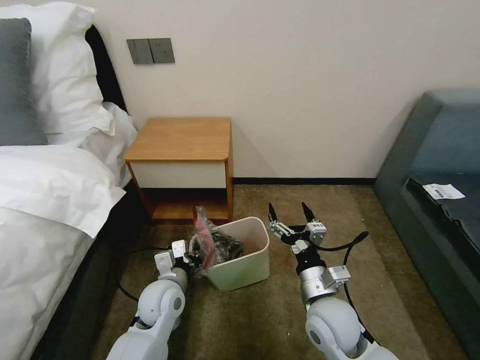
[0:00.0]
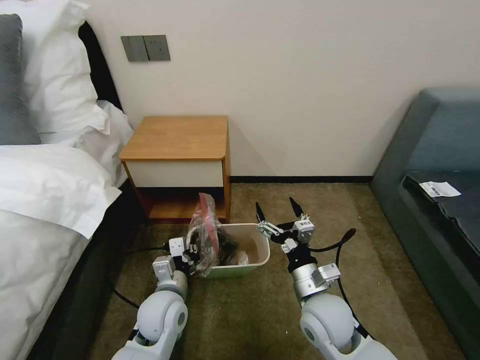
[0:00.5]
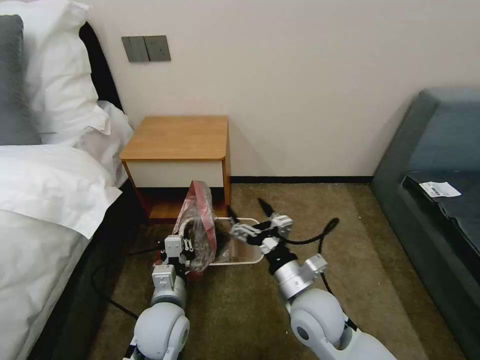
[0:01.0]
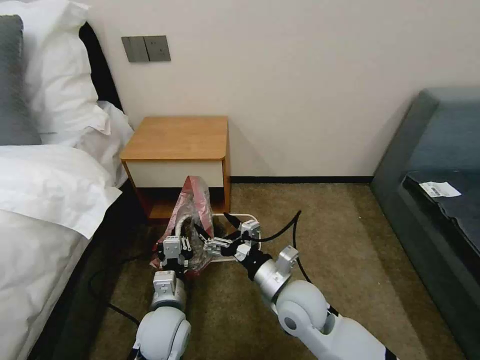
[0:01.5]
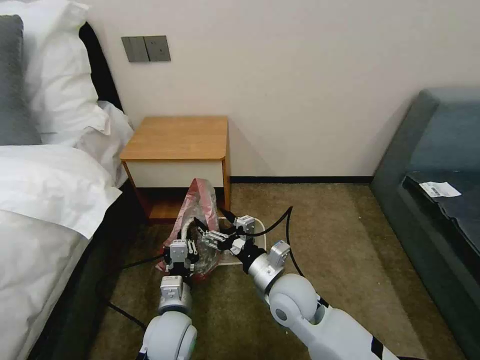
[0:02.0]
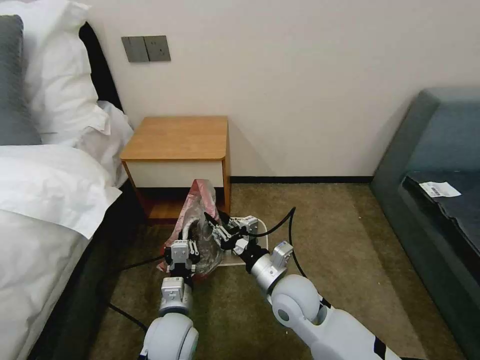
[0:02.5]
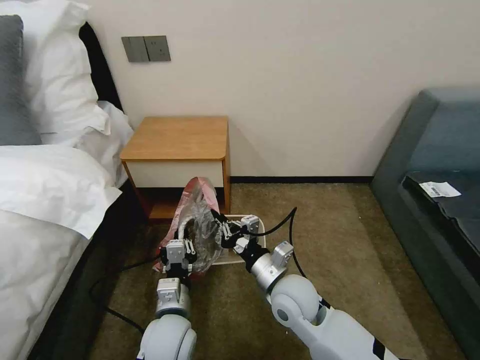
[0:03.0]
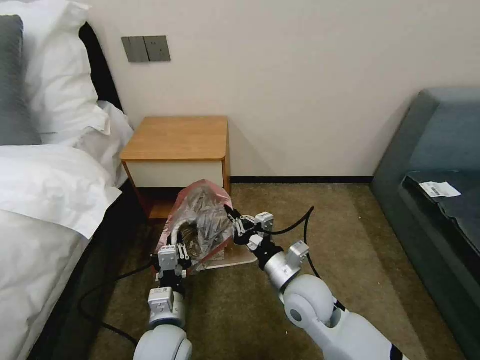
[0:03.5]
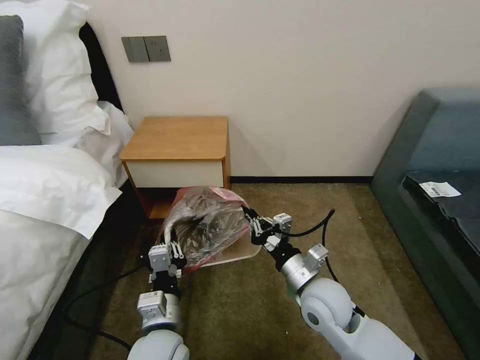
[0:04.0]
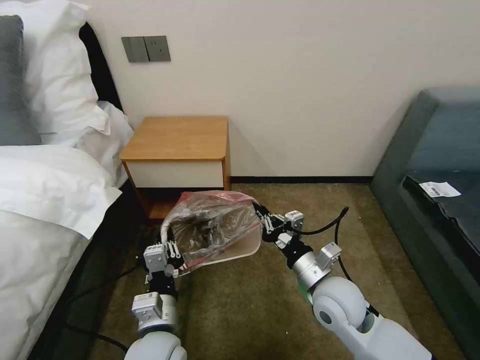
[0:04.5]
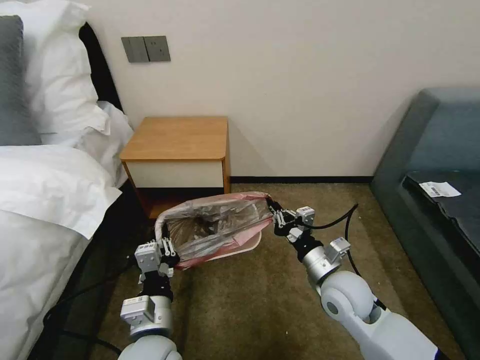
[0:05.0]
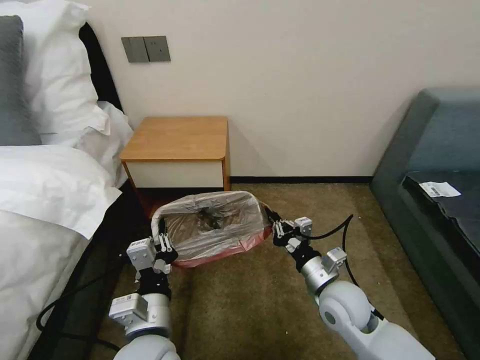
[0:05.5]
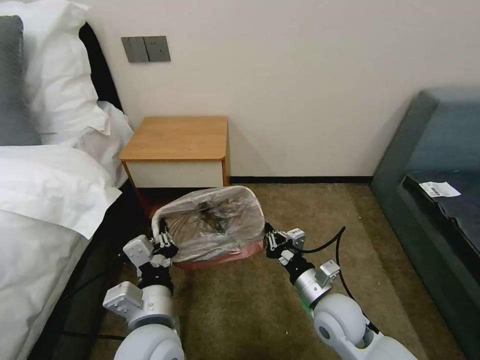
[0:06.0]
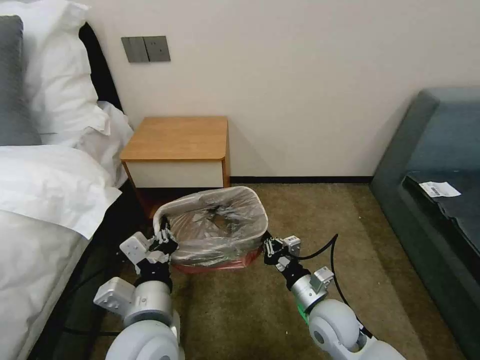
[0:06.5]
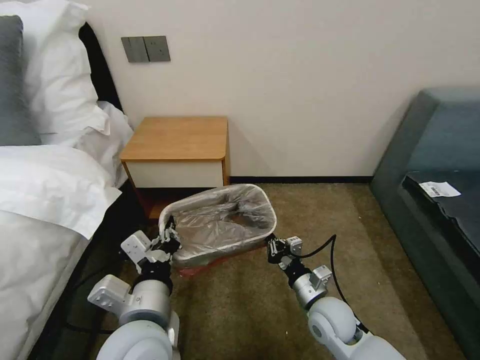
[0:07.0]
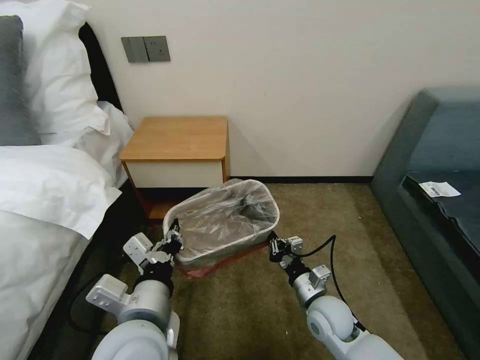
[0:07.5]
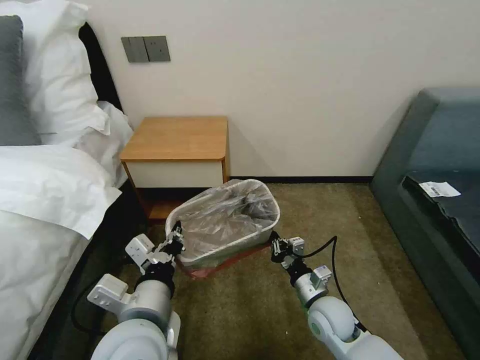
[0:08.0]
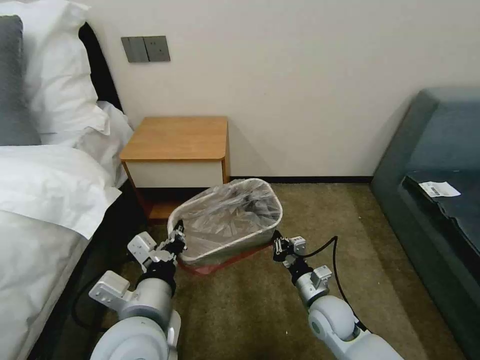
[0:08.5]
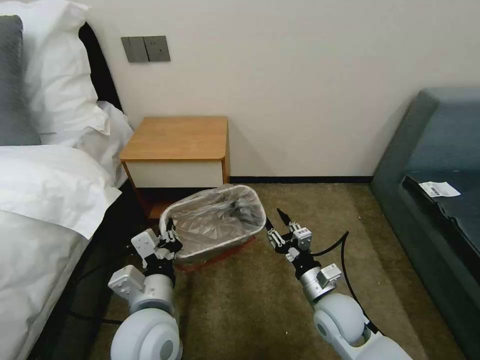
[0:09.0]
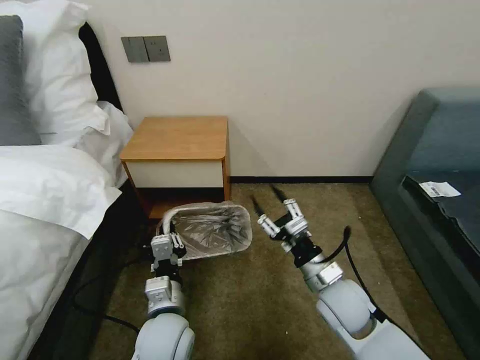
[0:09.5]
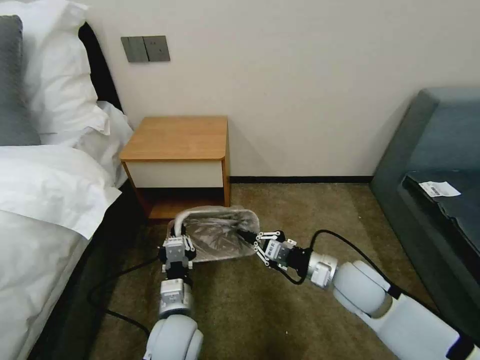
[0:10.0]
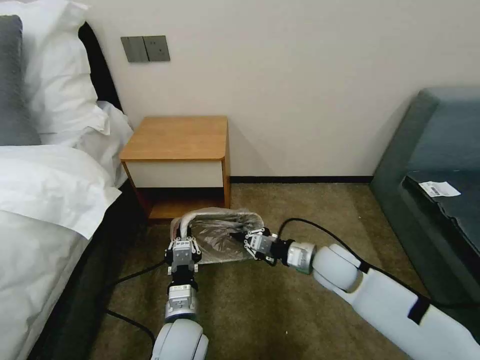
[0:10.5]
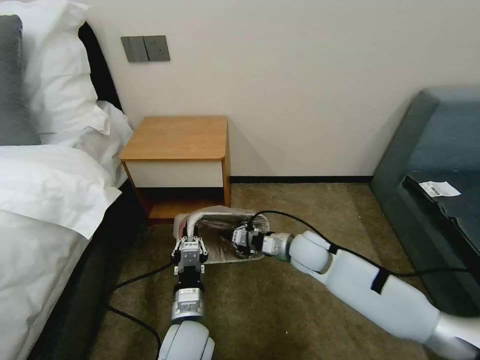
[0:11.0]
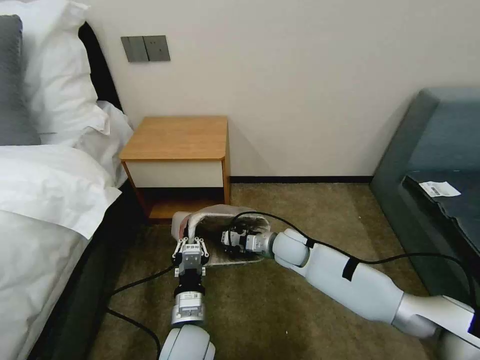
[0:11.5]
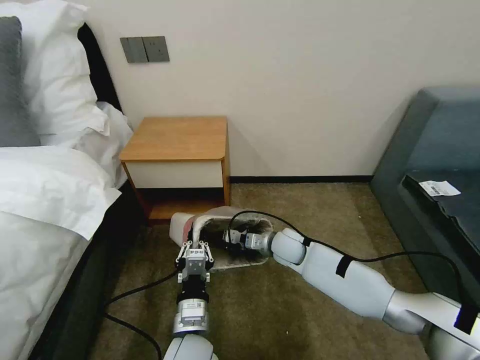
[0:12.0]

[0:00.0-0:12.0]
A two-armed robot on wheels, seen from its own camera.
Task of the whole recording: Pick up the garbage bag from the table and place it over the trash can.
0:00.0 to 0:02.0: The left gripper goes about 5 cm backward, while the right gripper is displaced to the left by approximately 5 cm.
0:02.0 to 0:04.0: The right gripper is displaced to the right by approximately 5 cm, and closes up. The left gripper shifts by some 5 cm.
0:04.0 to 0:06.0: The right gripper ends up some 5 cm from where it was. The left gripper shifts about 5 cm upward.
0:06.0 to 0:08.0: The right gripper shifts roughly 5 cm downward.
0:08.0 to 0:10.0: The right gripper goes some 10 cm upward, and opens and closes again; the left gripper is displaced downward by roughly 15 cm.
0:10.0 to 0:12.0: The right gripper is displaced forward, to the left and downward by some 20 cm.

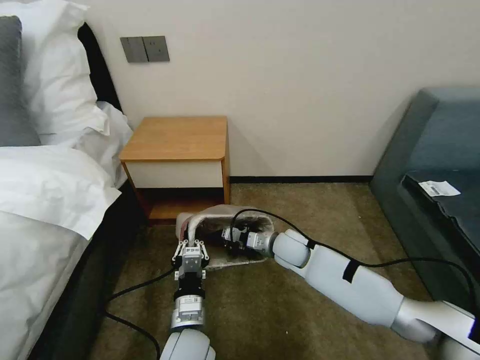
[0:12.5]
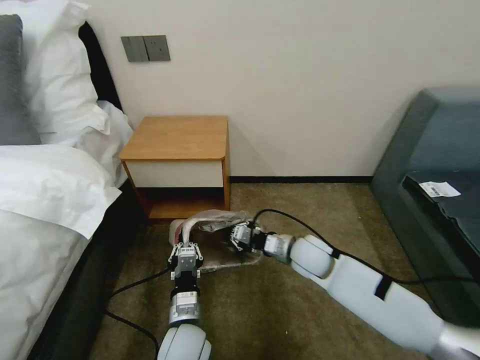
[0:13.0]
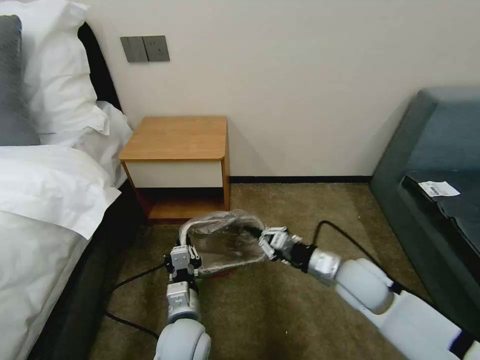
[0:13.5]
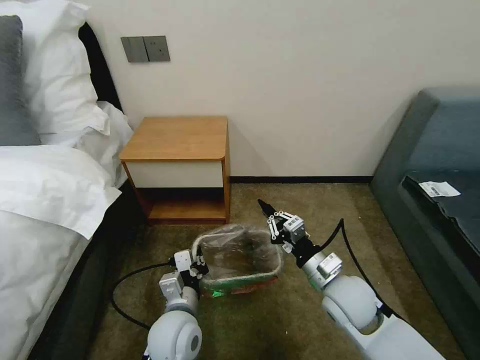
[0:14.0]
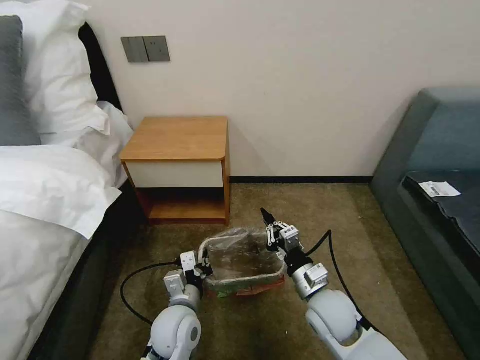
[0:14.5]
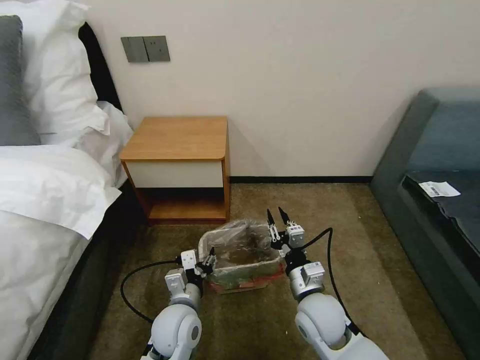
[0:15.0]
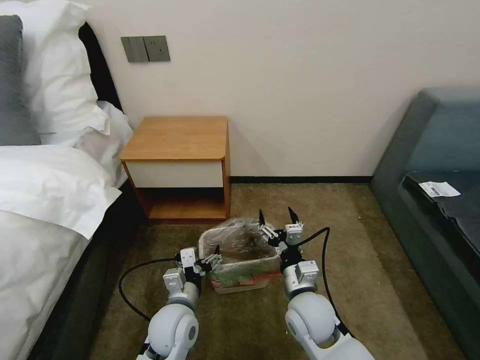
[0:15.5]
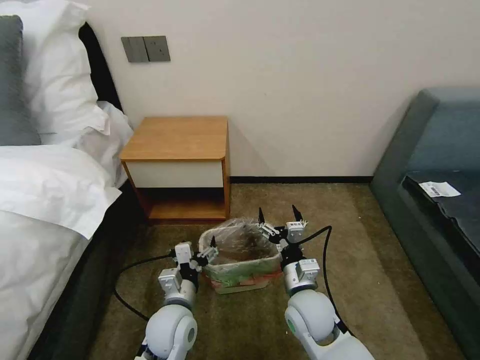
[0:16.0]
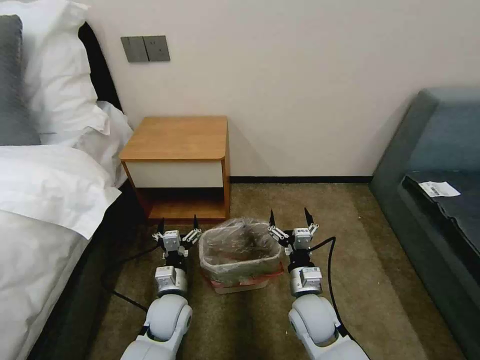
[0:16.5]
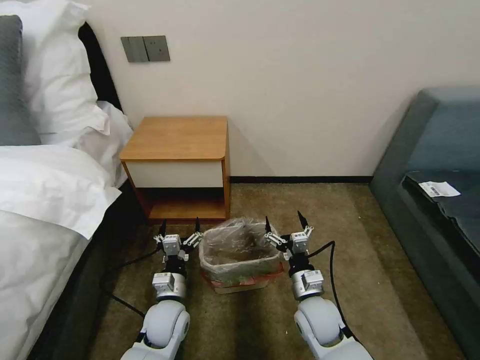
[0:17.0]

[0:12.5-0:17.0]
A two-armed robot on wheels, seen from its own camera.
Task of the whole recording: Pick up the garbage bag from the table and place it over the trash can.
0:12.5 to 0:14.5: The left gripper ends up approximately 5 cm from where it was, while the right gripper travels backward by about 15 cm.
0:14.5 to 0:17.0: The left gripper shifts by approximately 5 cm, and opens, while the right gripper goes about 5 cm downward, and opens its fingers.

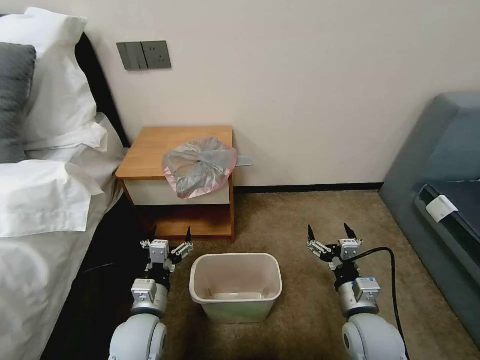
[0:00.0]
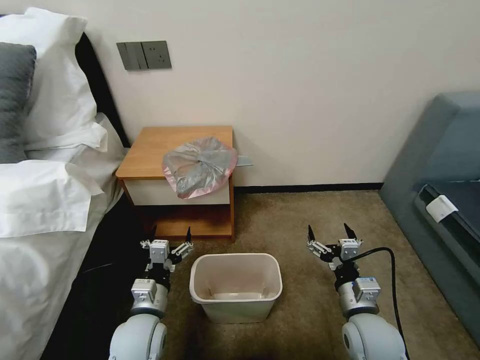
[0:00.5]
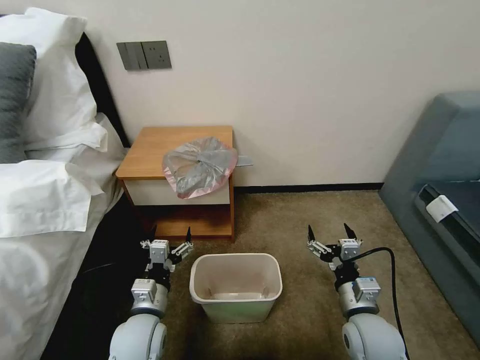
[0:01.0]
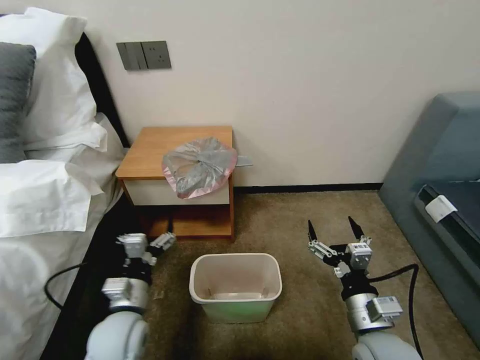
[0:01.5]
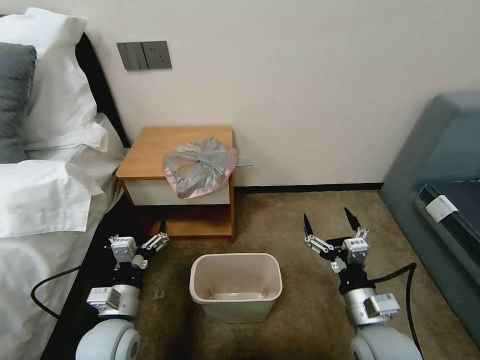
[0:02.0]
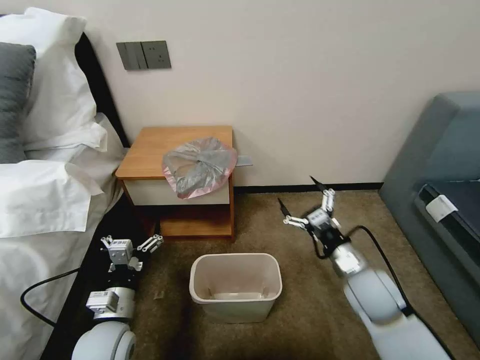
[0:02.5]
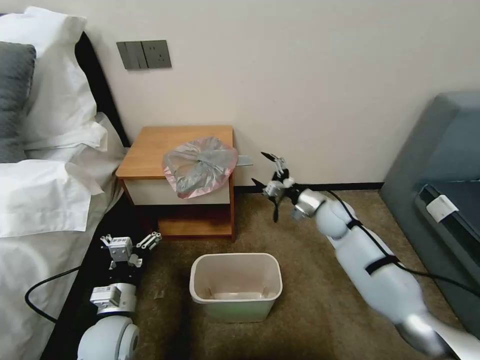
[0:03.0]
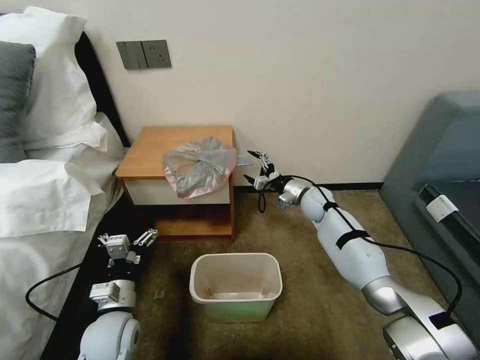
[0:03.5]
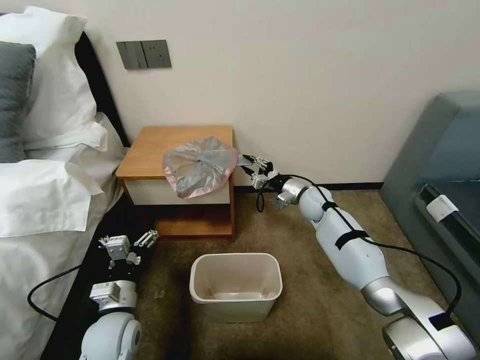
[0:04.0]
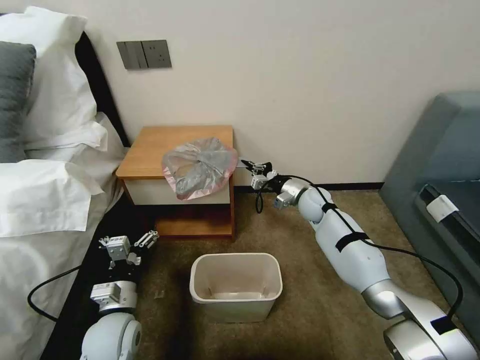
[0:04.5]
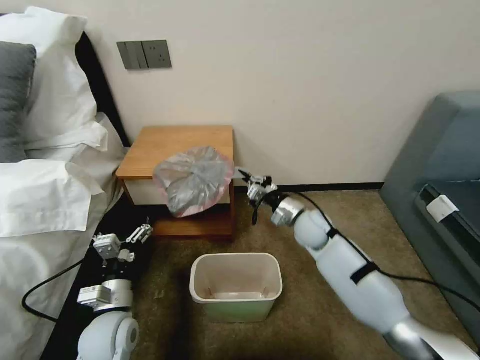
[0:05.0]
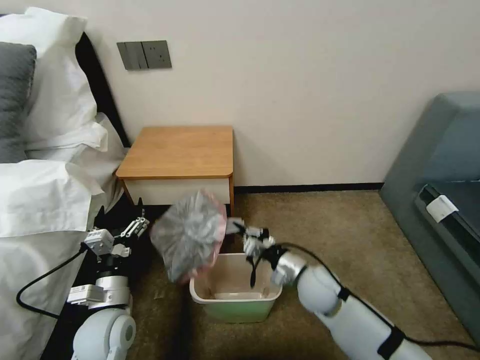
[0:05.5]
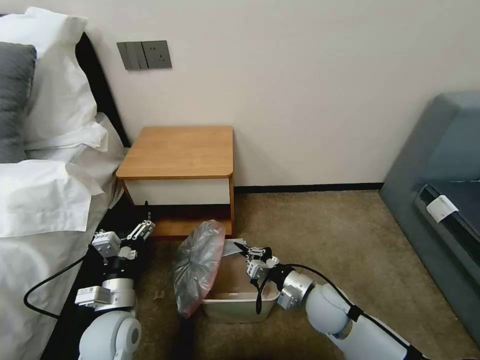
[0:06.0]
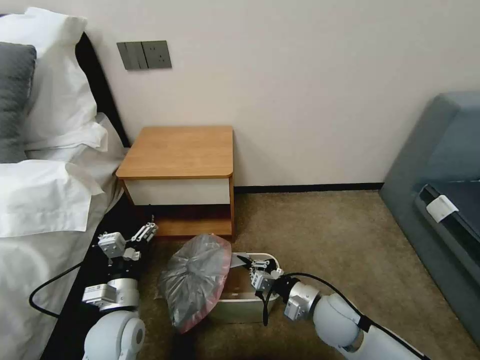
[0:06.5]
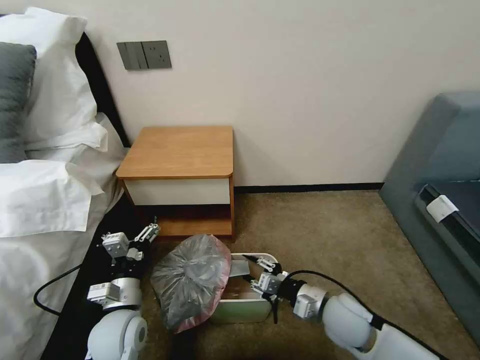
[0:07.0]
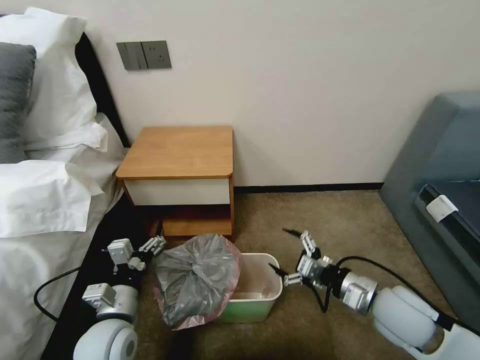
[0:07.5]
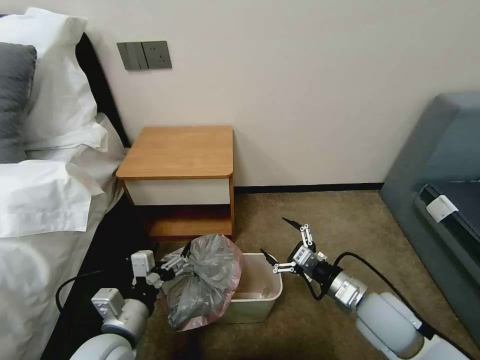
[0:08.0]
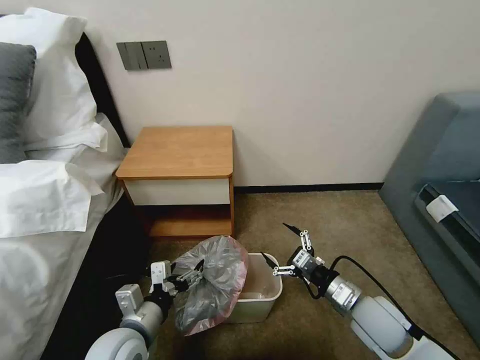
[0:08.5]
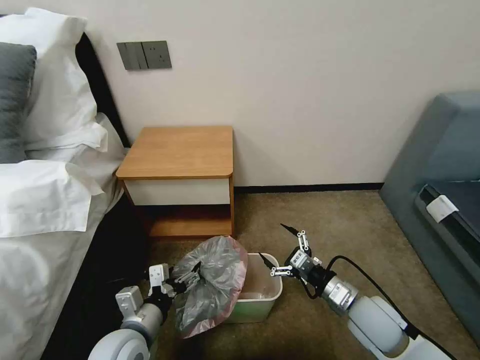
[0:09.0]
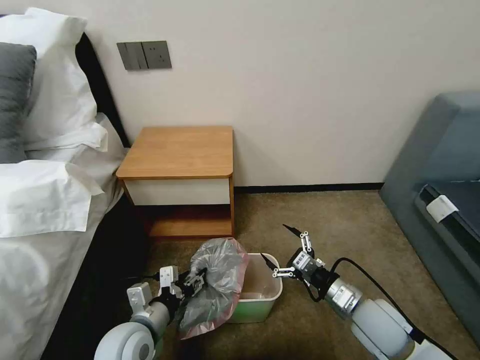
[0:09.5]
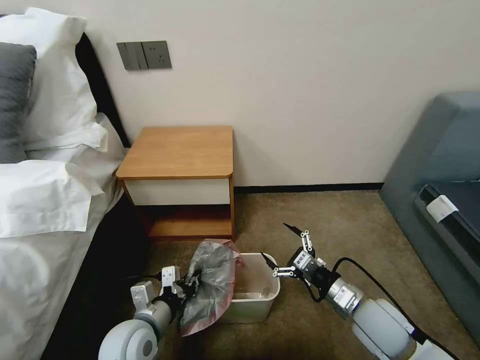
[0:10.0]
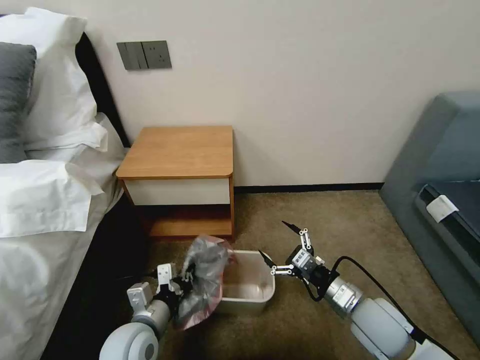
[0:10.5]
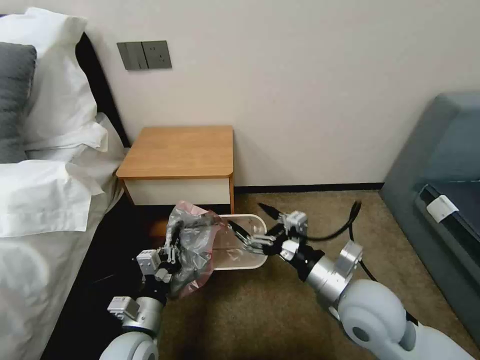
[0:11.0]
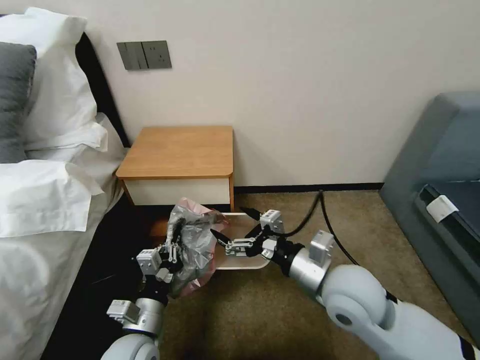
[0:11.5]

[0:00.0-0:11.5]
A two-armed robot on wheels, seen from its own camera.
Task of the whole recording: Pick up the garbage bag from the table and place it over the trash can.
0:02.0 to 0:04.0: The right gripper goes some 35 cm forward, and closes up.
0:04.0 to 0:06.0: The right gripper moves backward, approximately 25 cm, and closes.
0:06.0 to 0:07.5: The right gripper heads to the right and upward, covering approximately 15 cm, and opens its fingers.
0:07.5 to 0:09.5: The left gripper closes its fingers. The right gripper shifts about 5 cm downward.
0:09.5 to 0:11.5: The left gripper closes its fingers. The right gripper shifts some 15 cm upward and to the left.
